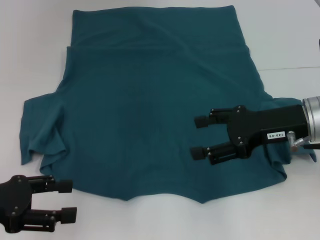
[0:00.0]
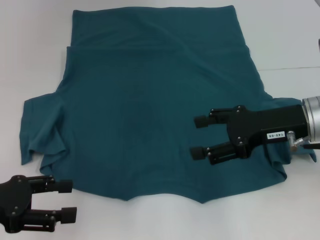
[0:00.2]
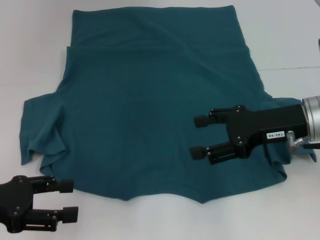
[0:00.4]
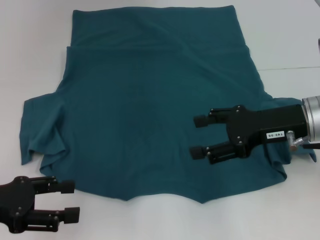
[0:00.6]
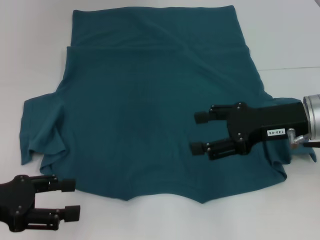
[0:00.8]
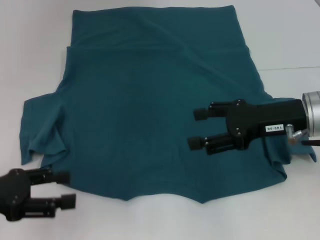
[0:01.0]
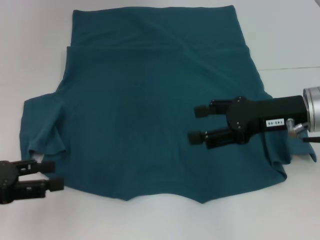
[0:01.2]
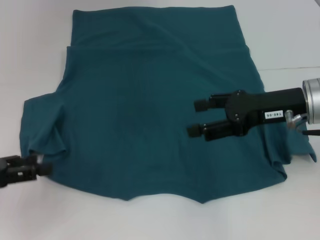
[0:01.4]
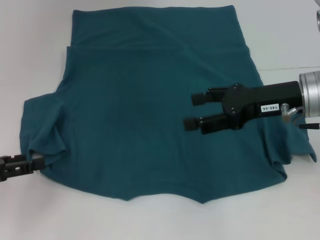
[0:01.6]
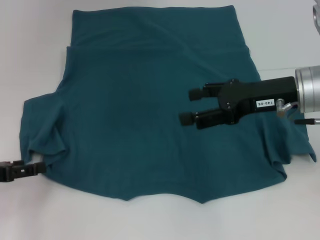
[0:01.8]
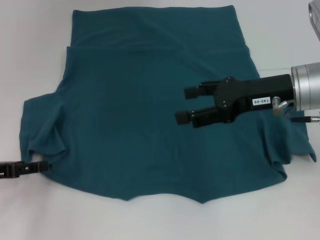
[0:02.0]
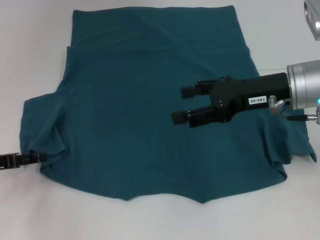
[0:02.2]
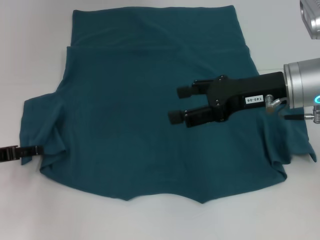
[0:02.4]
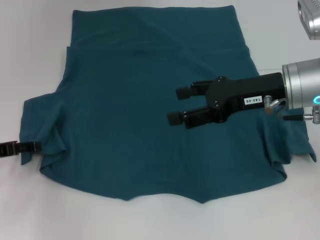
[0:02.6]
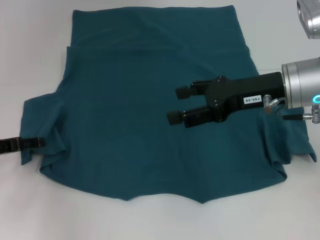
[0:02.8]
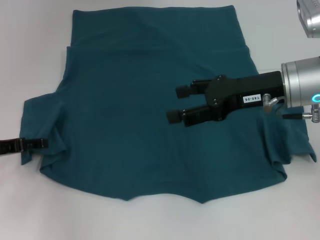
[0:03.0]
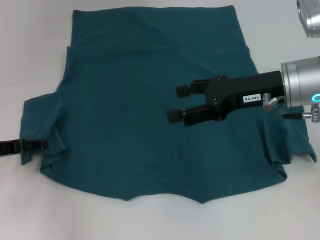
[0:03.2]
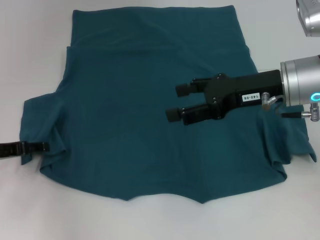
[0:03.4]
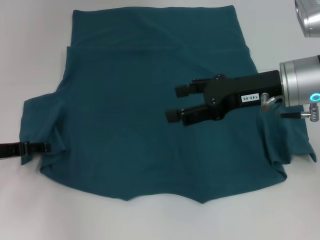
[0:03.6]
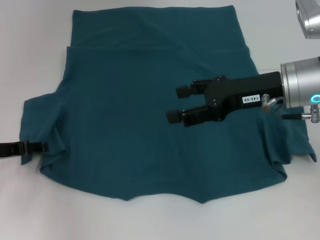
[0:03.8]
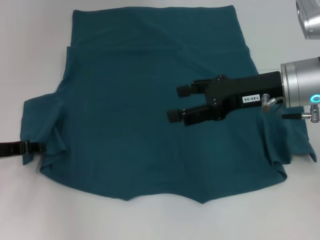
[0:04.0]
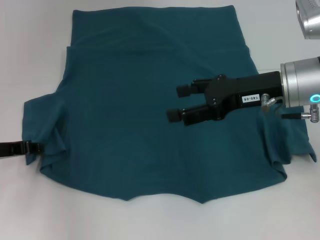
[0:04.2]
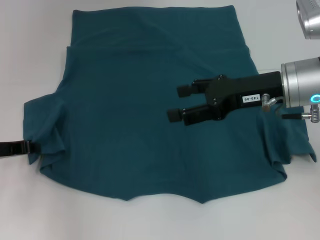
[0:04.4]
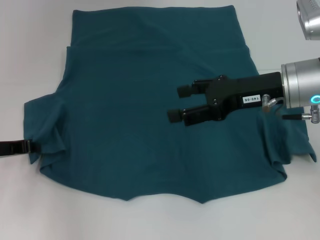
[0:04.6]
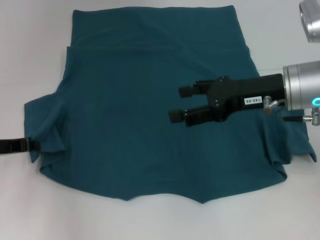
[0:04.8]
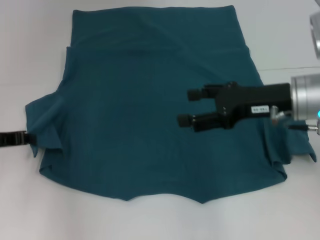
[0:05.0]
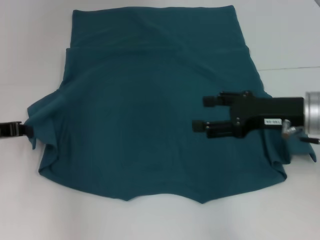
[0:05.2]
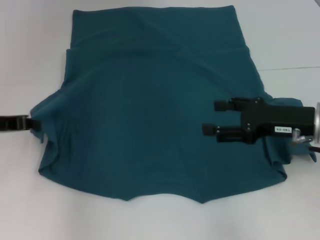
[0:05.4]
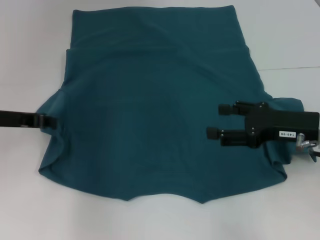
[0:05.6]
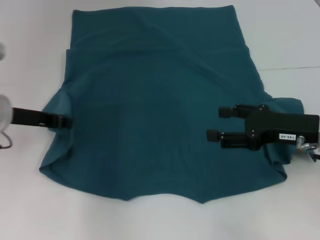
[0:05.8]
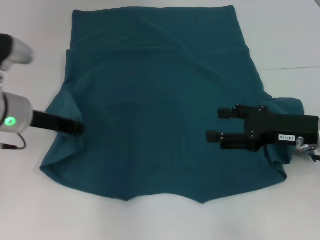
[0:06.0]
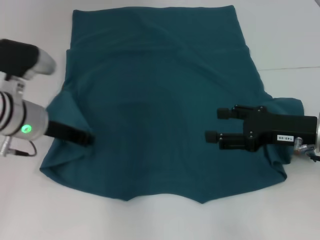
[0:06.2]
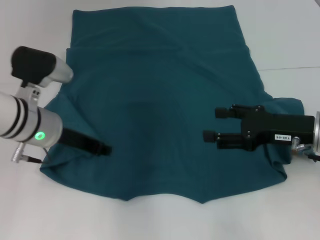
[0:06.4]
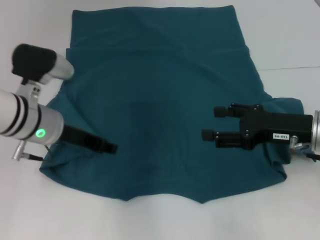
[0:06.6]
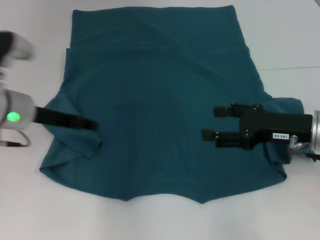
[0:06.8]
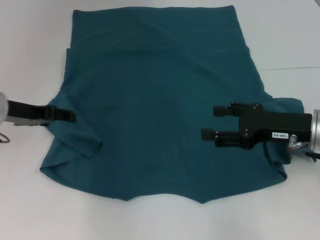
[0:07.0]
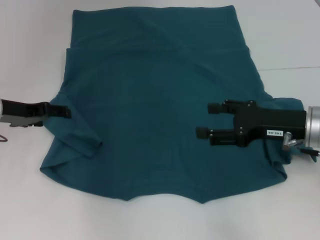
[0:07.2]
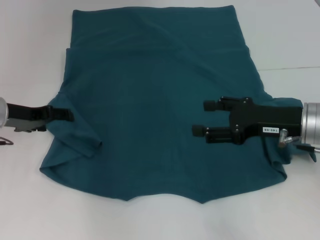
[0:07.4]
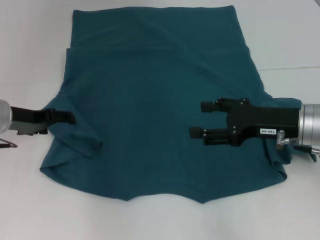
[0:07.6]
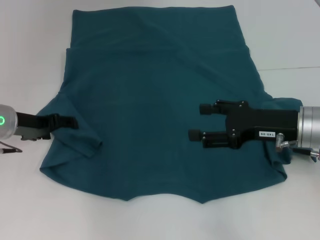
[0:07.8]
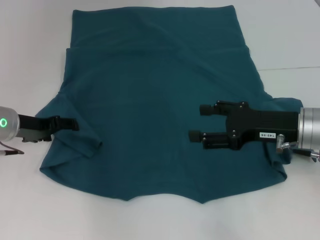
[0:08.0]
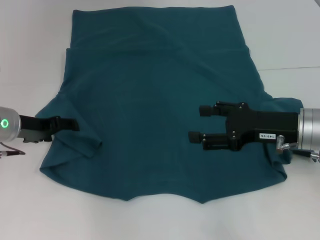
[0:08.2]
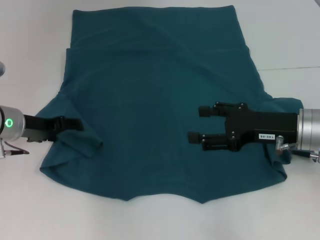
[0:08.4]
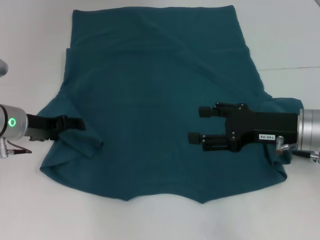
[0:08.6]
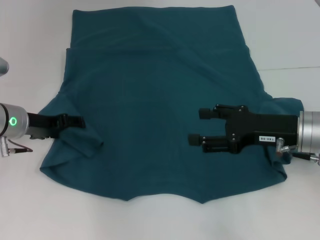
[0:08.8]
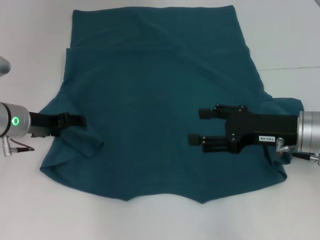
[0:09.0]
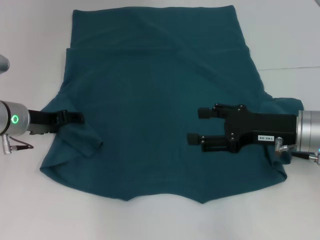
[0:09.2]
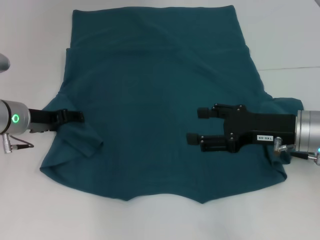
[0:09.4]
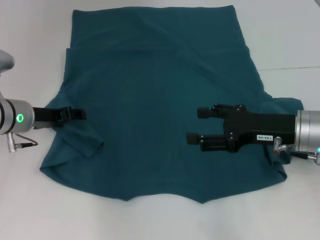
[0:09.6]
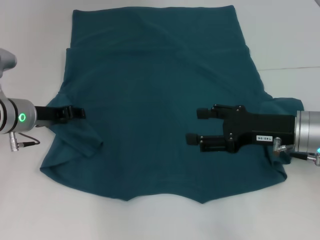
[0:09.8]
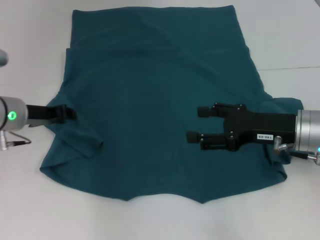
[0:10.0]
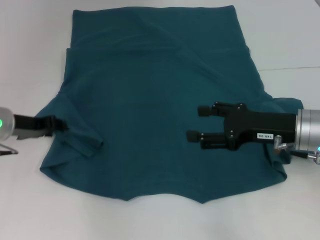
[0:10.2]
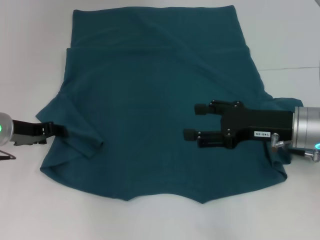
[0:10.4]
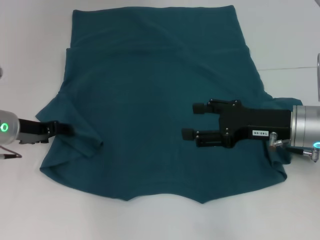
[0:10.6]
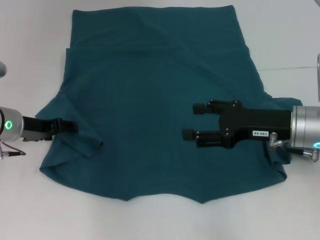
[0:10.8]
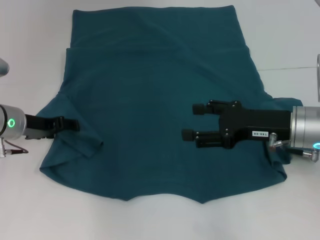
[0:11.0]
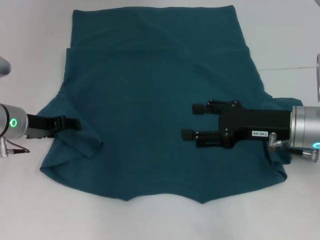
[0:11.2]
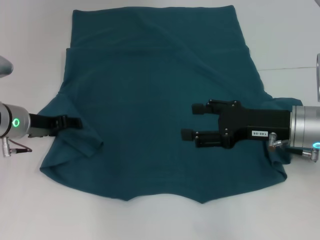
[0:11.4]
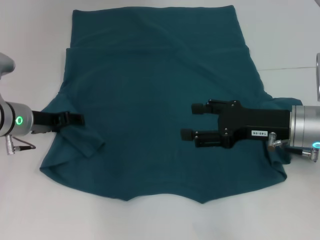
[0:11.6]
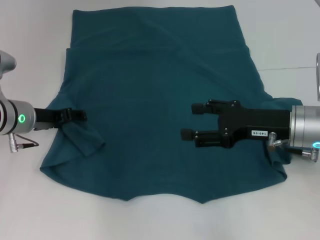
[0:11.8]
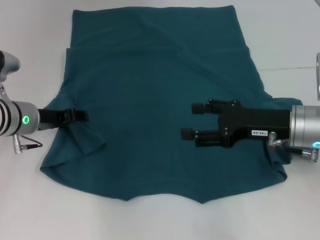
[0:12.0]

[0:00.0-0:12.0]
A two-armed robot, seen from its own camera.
0:01.6 to 0:03.0: The left gripper moves forward, about 5 cm.
0:03.0 to 0:04.4: The left gripper closes its fingers.
0:04.4 to 0:06.0: The left gripper is displaced to the right and upward by some 10 cm. Meanwhile the right gripper goes some 10 cm downward and to the right.
0:06.0 to 0:07.6: The left gripper ends up approximately 5 cm from where it was, and opens up.
0:07.6 to 0:09.0: The grippers make only small movements.
0:09.0 to 0:10.4: The left gripper closes its fingers.
0:10.4 to 0:12.0: The left gripper opens.

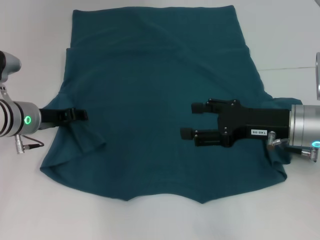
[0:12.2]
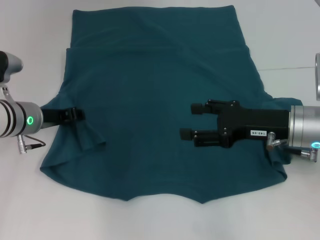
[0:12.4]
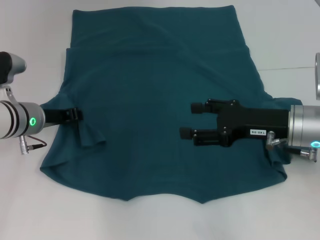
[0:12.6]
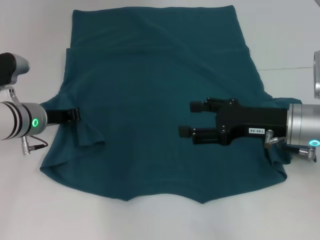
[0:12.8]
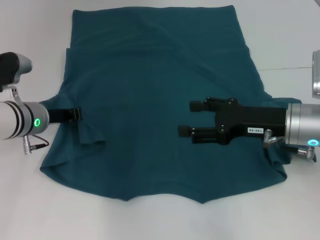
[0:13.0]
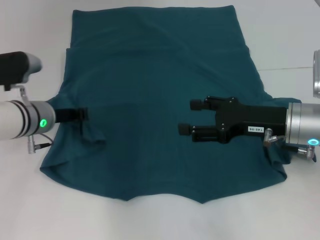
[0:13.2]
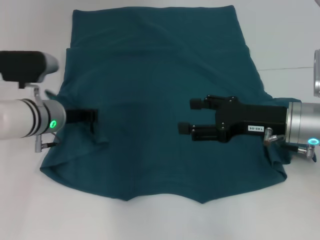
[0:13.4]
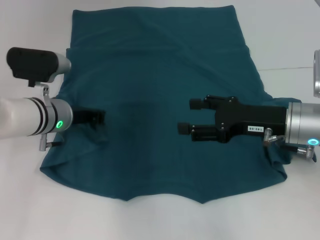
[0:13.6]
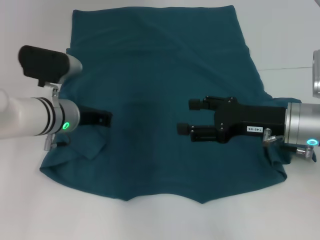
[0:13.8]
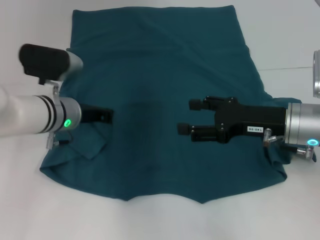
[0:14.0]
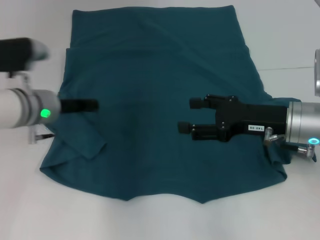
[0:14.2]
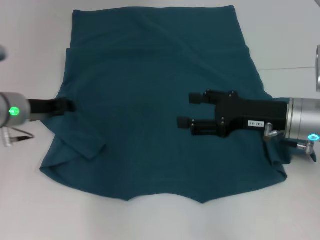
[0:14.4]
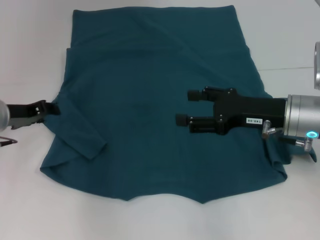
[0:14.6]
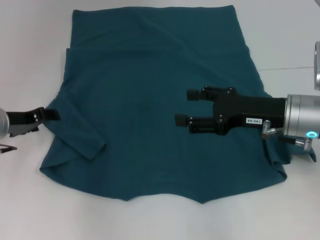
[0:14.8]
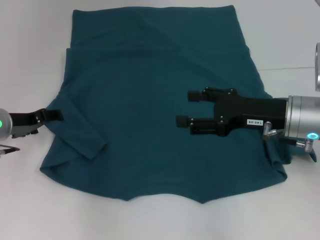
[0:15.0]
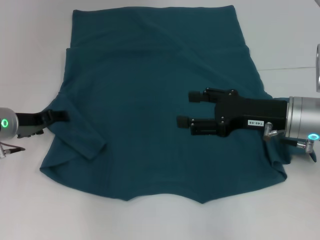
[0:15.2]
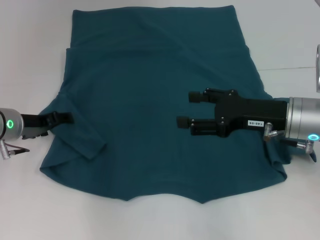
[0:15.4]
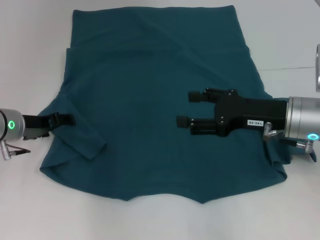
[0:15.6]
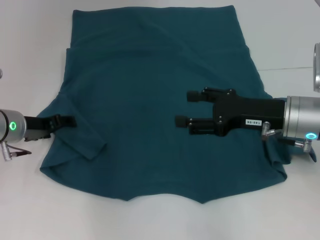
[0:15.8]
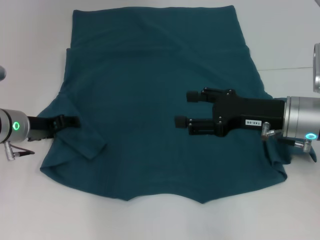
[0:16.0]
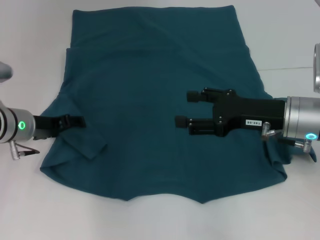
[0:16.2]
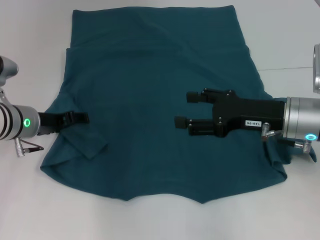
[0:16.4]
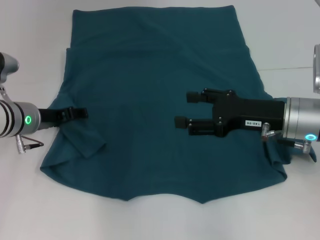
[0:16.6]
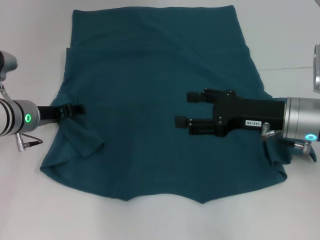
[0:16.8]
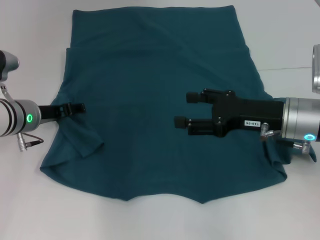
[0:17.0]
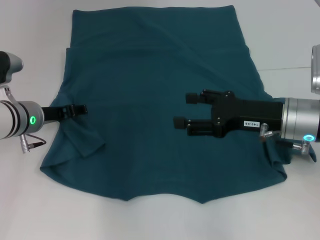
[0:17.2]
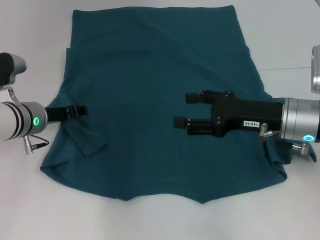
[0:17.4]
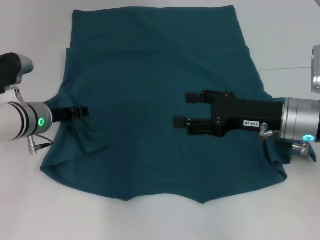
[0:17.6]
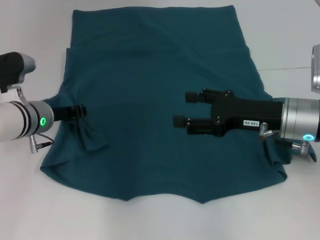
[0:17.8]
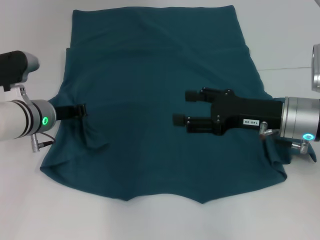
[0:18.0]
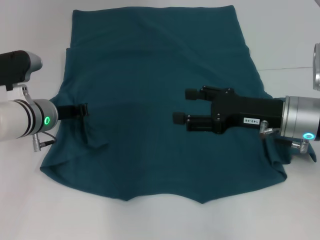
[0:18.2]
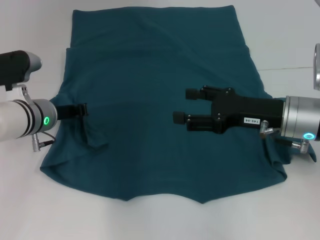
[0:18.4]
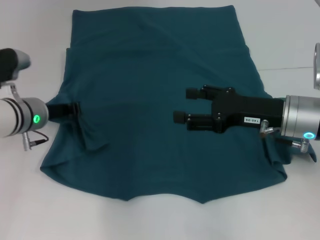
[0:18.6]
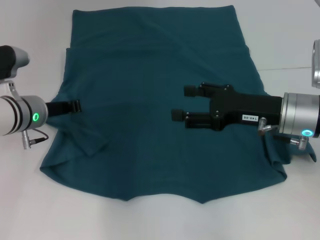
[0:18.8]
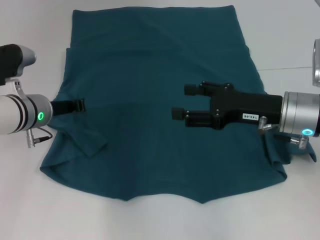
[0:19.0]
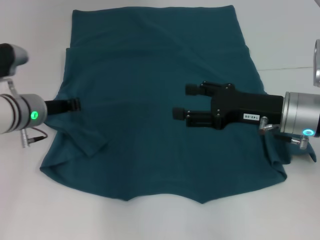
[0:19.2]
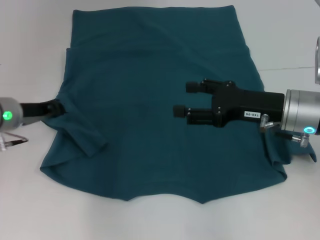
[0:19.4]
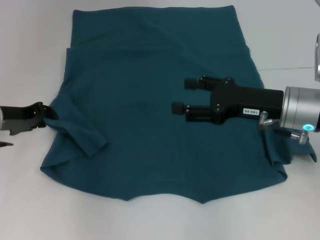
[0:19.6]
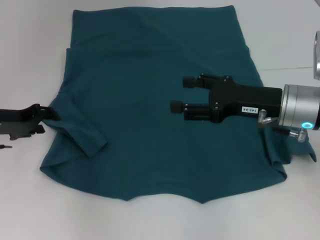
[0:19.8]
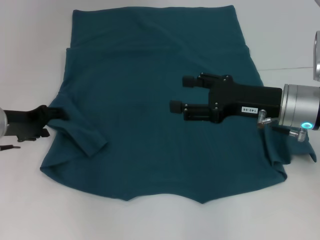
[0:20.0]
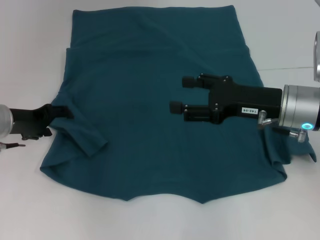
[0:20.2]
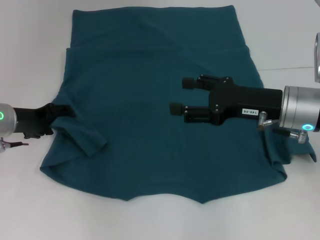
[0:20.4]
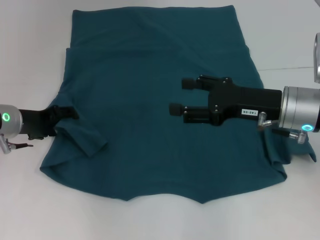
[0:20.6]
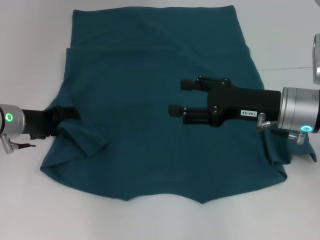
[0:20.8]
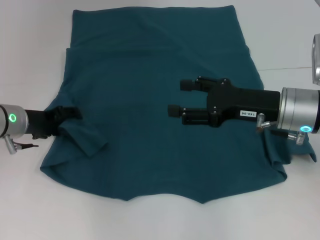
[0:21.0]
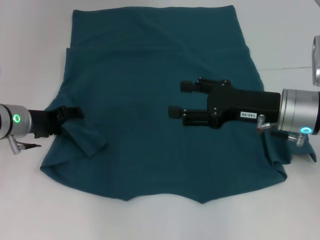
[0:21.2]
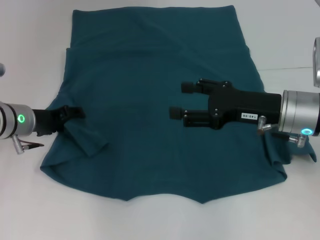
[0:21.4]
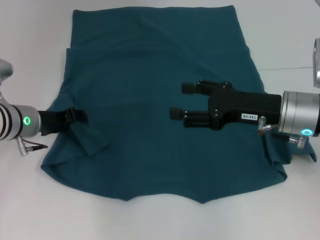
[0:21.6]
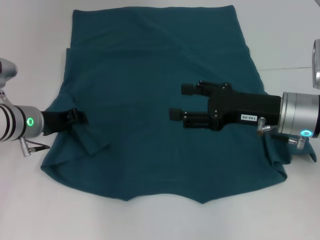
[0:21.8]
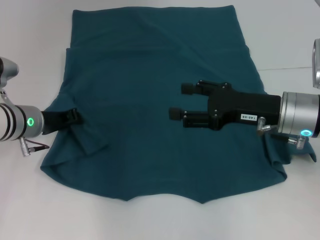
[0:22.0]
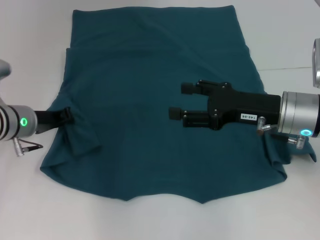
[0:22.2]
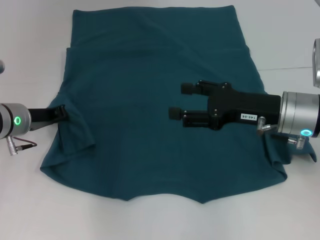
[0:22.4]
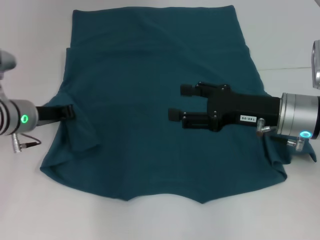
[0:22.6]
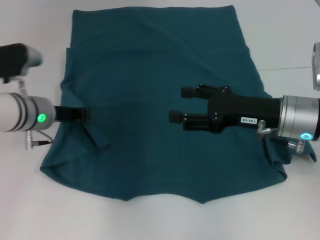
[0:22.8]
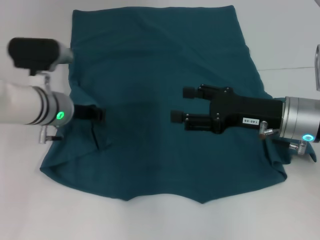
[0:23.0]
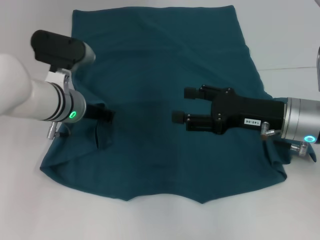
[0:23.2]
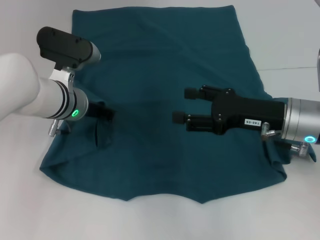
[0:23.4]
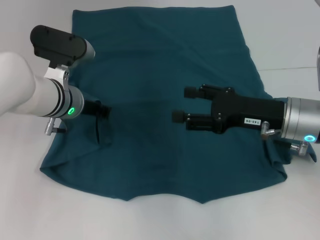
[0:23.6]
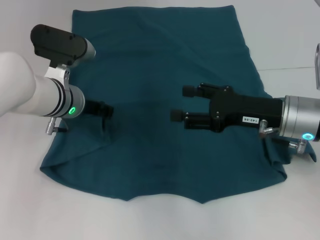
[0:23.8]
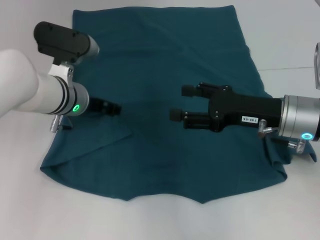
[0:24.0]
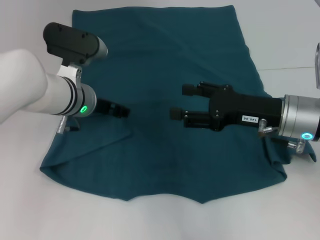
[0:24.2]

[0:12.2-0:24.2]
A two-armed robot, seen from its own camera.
0:12.2 to 0:13.8: The left gripper heads to the right, covering some 5 cm, and closes.
0:13.8 to 0:15.2: The left gripper heads to the left, covering about 10 cm, and opens its fingers.
0:15.2 to 0:16.6: There are only small adjustments of the grippers.
0:16.6 to 0:18.2: The left gripper closes up.
0:18.2 to 0:19.8: The left gripper moves to the left, approximately 10 cm.
0:19.8 to 0:21.2: The left gripper changes place by some 5 cm, and opens.
0:21.2 to 0:22.6: The left gripper closes up.
0:22.6 to 0:24.2: The left gripper travels to the right by some 10 cm, and opens its fingers.
